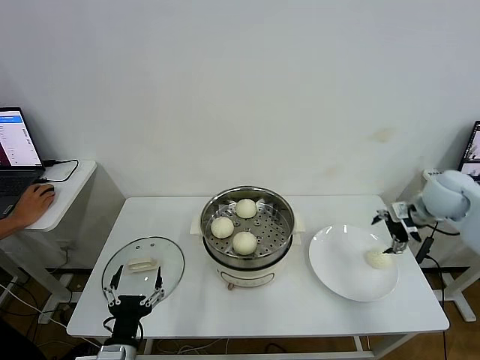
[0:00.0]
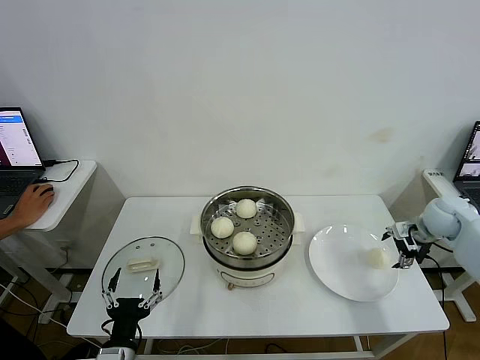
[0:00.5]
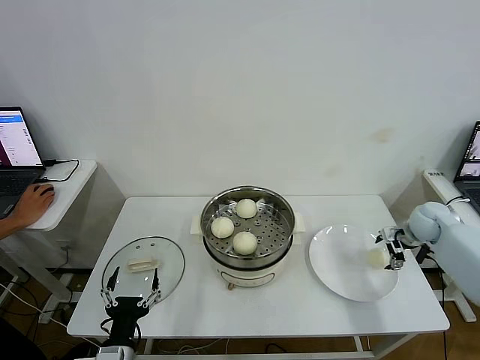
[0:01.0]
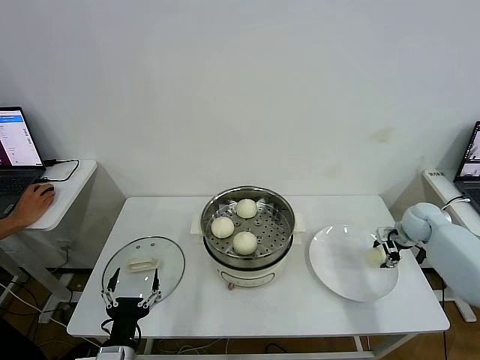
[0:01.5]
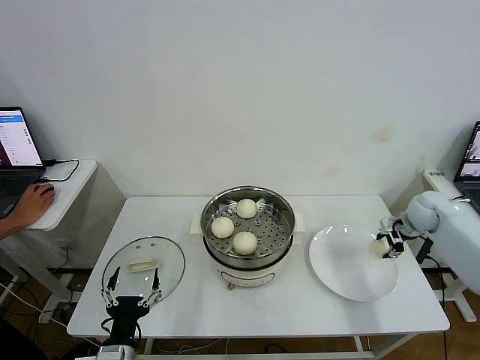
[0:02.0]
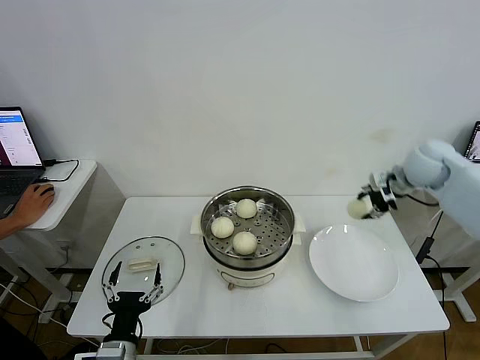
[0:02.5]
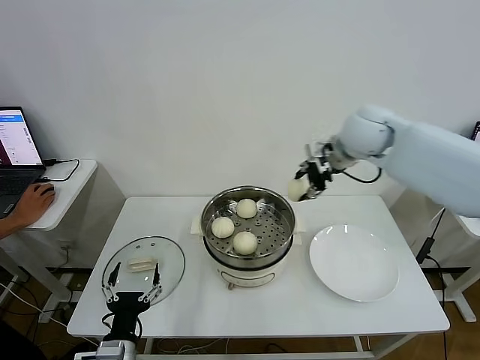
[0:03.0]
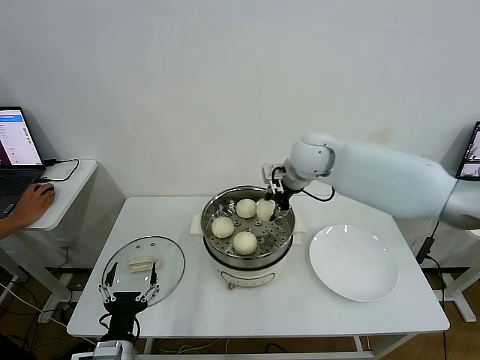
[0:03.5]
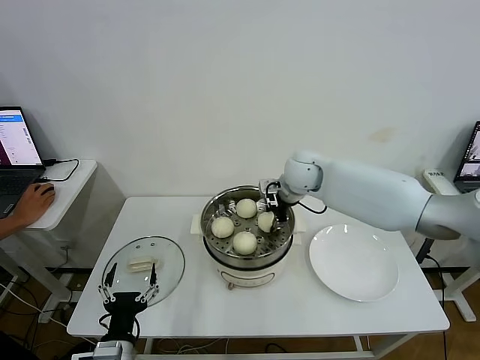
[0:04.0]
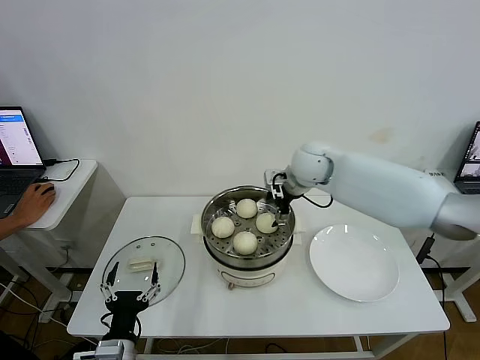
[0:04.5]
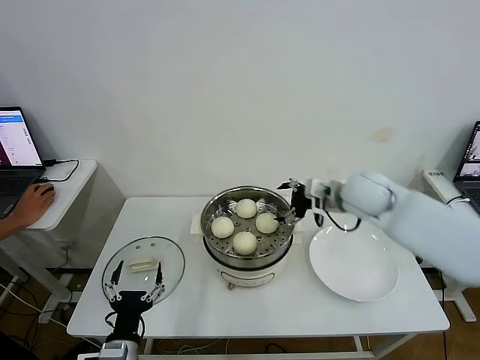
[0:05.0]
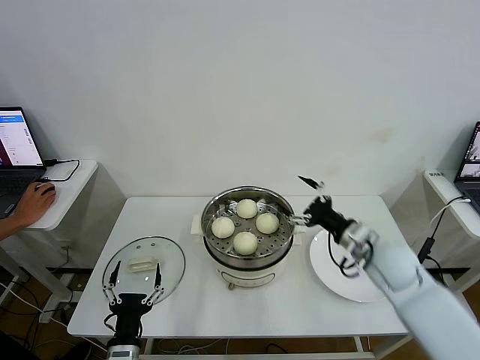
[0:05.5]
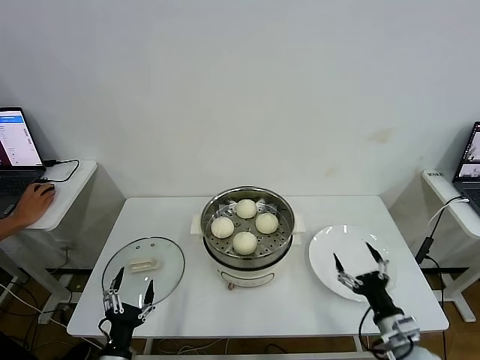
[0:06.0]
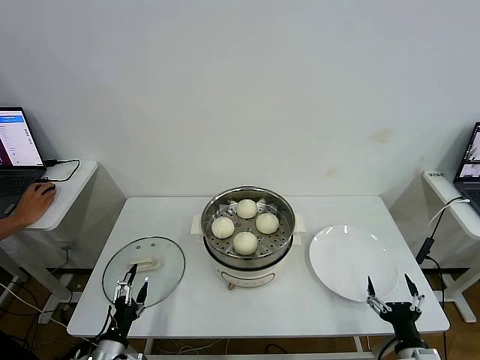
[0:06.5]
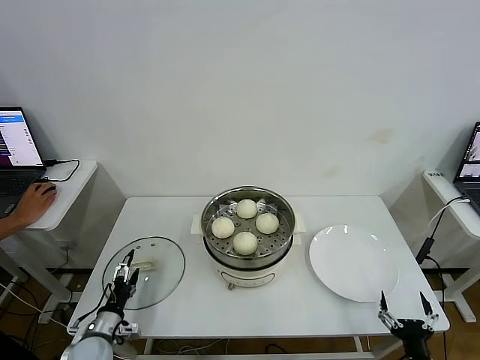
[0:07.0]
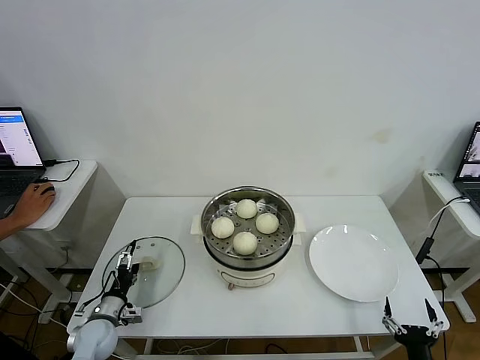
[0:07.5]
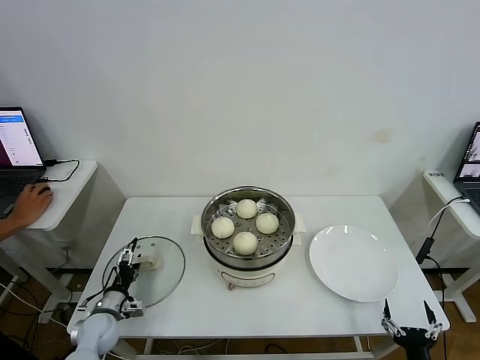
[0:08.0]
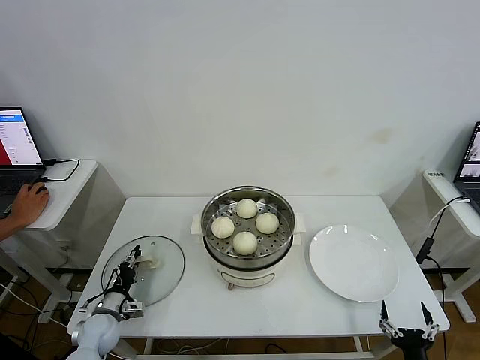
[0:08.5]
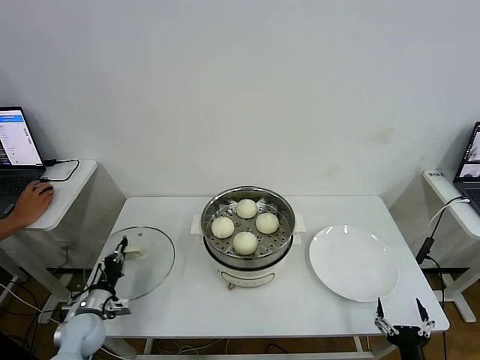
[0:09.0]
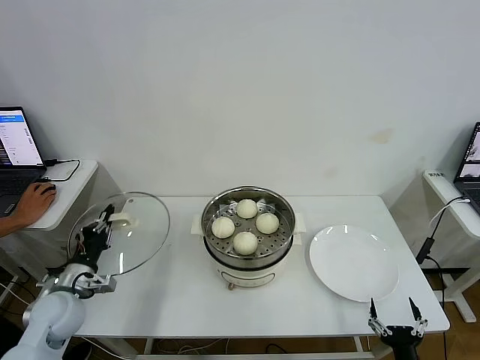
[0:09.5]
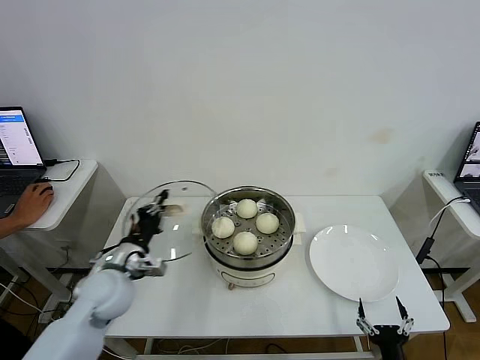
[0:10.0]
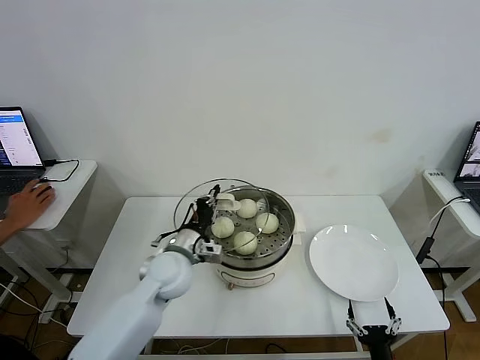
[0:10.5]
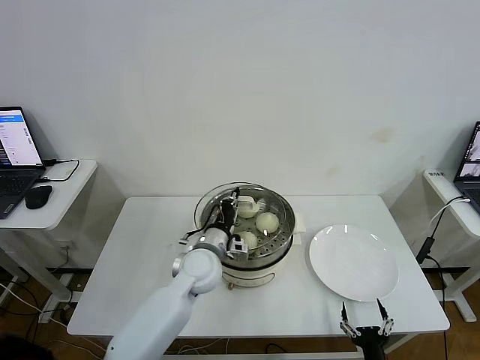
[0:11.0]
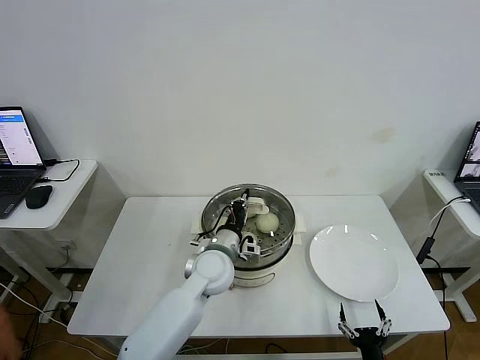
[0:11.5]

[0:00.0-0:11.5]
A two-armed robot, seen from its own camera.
Step, 0:00.0 to 0:01.5: Grasp the baozi in the plate with right gripper.
Step, 0:02.0 to 0:04.5: Place the baozi on the steamer with right gripper.
Step, 0:05.0 to 0:08.5: Grasp the pot lid with left gripper.
0:00.0 to 0:02.0: The right gripper heads downward, covering roughly 10 cm, and closes up.
0:02.0 to 0:04.0: The right gripper is displaced to the left by roughly 30 cm.
0:04.0 to 0:06.0: The right gripper goes approximately 50 cm backward, downward and to the right, and opens up. Meanwhile the left gripper moves roughly 5 cm.
0:06.0 to 0:07.5: The right gripper is displaced backward by some 10 cm. Meanwhile the left gripper is displaced forward and to the left by about 20 cm.
0:07.5 to 0:09.5: The left gripper goes roughly 15 cm upward, and closes its fingers.
0:09.5 to 0:11.5: The right gripper shifts by roughly 5 cm. Meanwhile the left gripper shifts approximately 30 cm to the right.

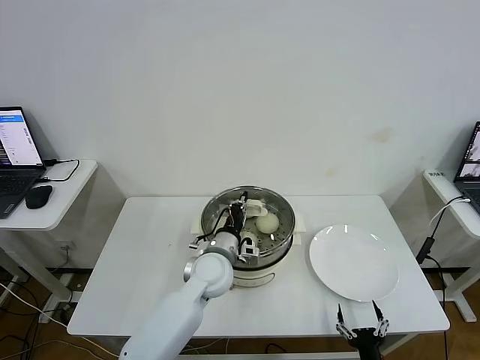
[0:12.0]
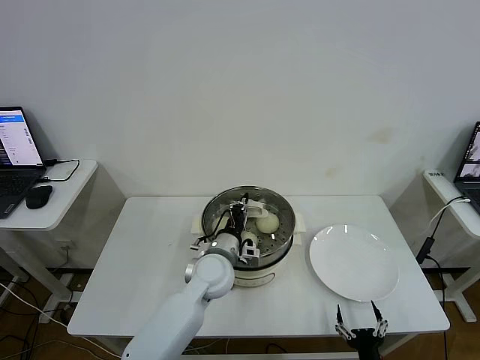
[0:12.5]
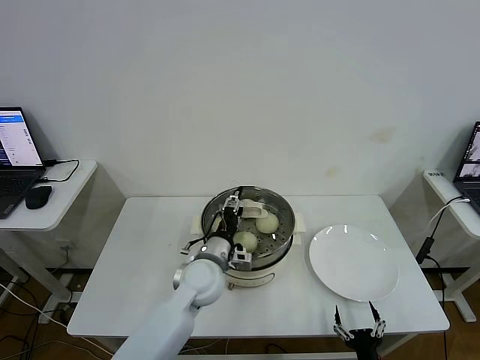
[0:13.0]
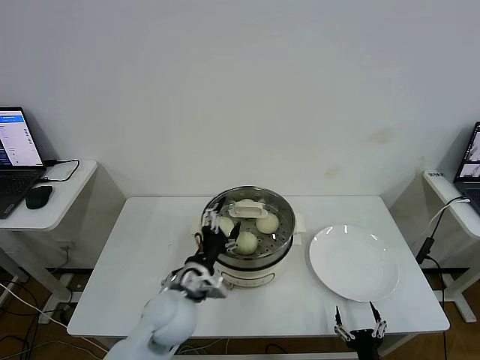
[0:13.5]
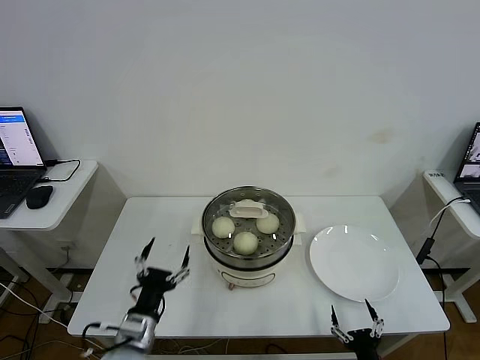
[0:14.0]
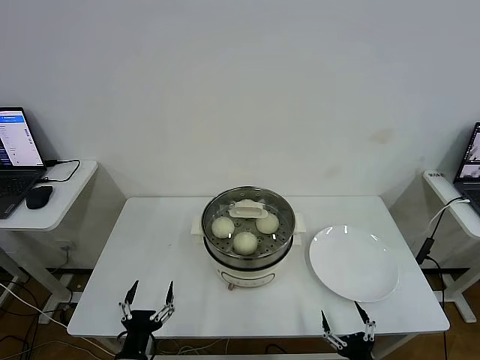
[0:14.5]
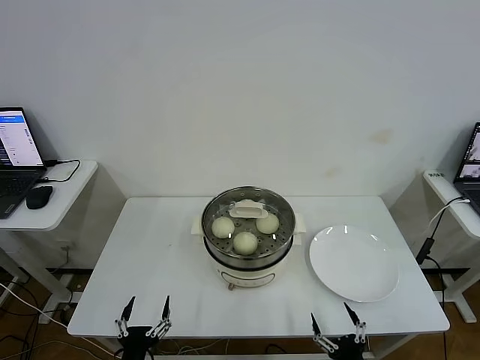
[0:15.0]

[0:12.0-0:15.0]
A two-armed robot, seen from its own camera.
0:12.0 to 0:13.5: The left gripper heads backward and to the left, covering about 10 cm, and opens.
0:13.5 to 0:15.0: The right gripper shifts by some 5 cm. Meanwhile the left gripper travels backward, downward and to the left by about 25 cm.

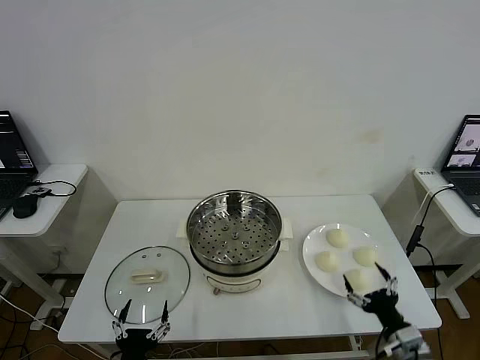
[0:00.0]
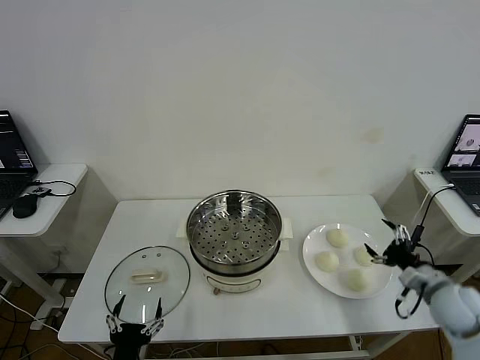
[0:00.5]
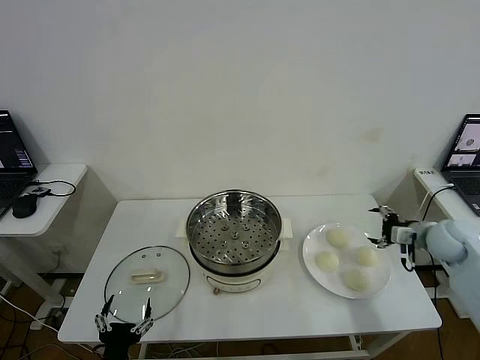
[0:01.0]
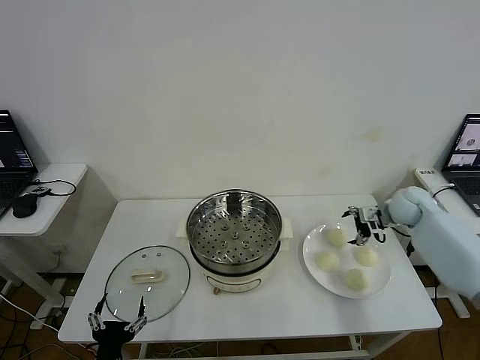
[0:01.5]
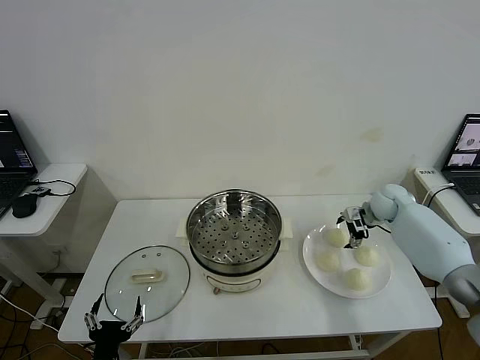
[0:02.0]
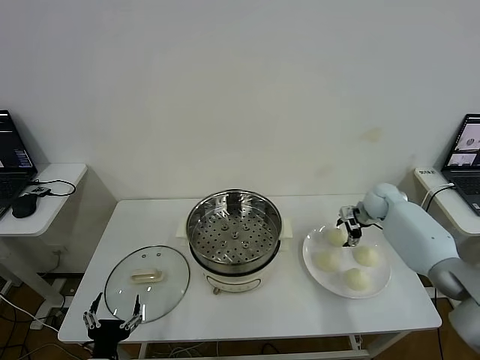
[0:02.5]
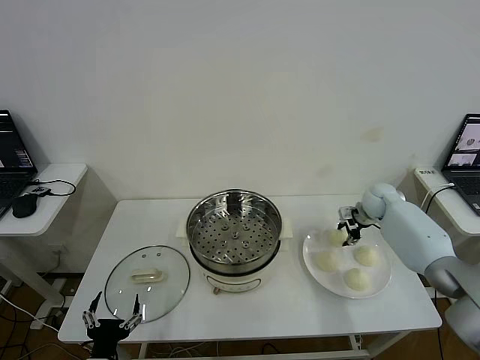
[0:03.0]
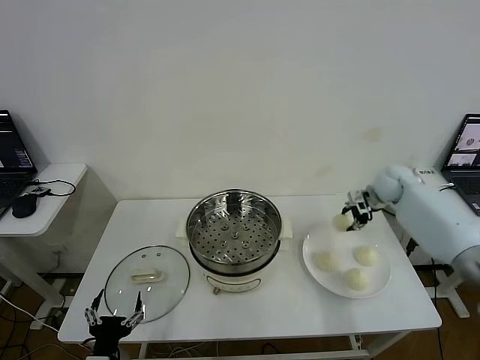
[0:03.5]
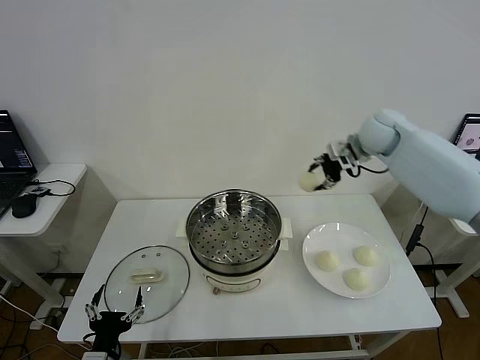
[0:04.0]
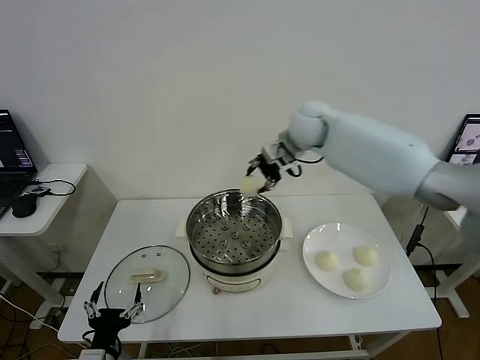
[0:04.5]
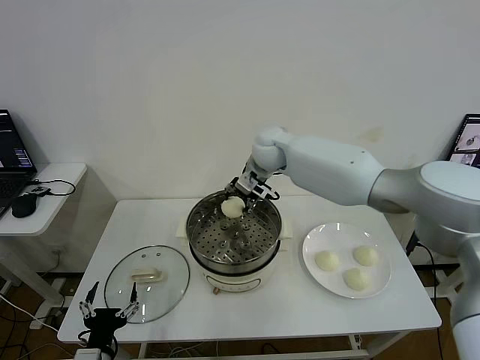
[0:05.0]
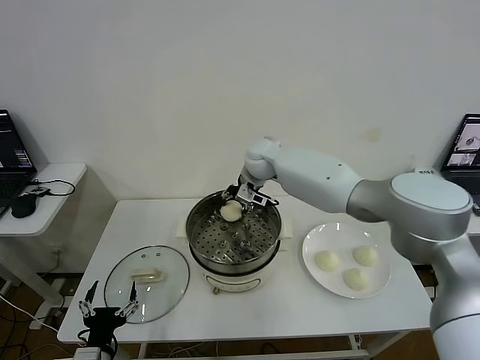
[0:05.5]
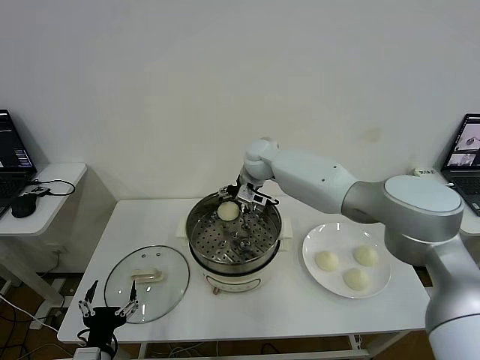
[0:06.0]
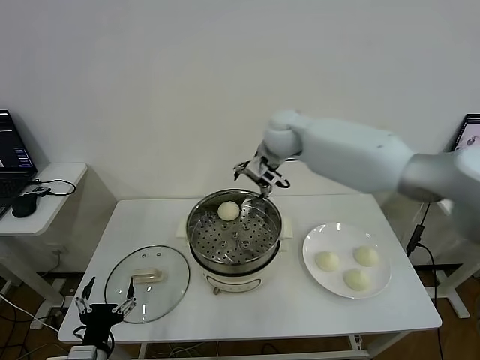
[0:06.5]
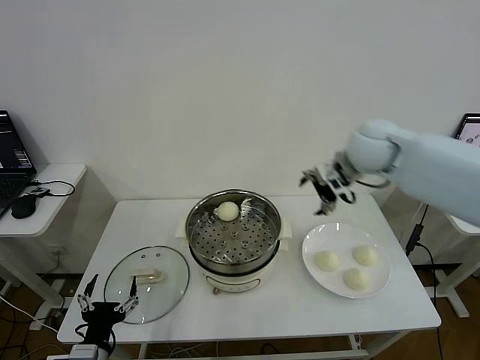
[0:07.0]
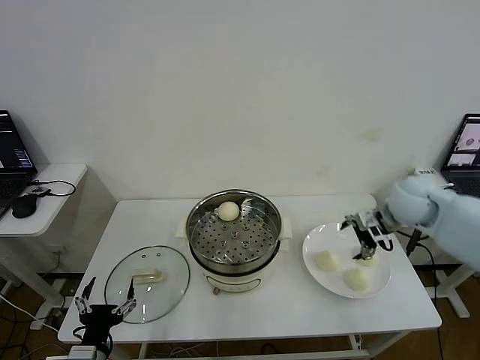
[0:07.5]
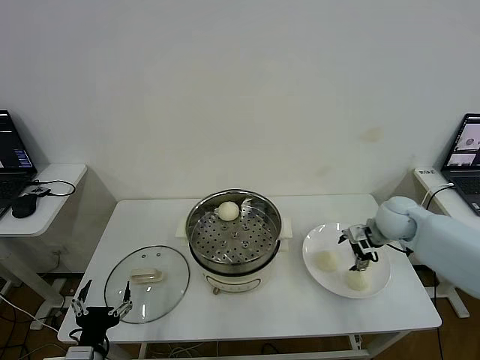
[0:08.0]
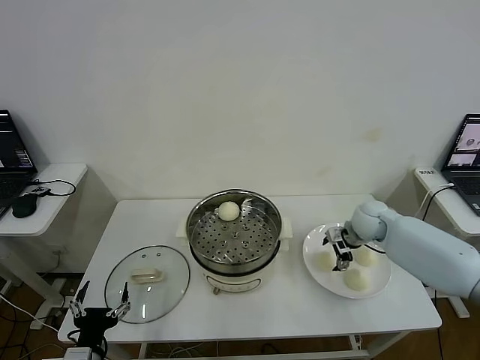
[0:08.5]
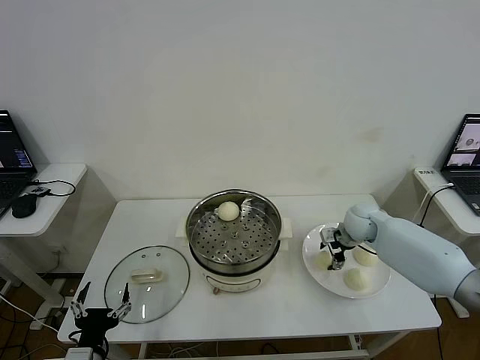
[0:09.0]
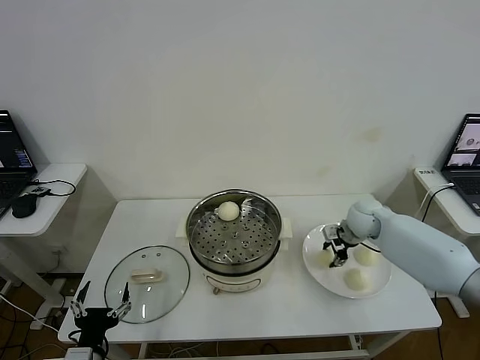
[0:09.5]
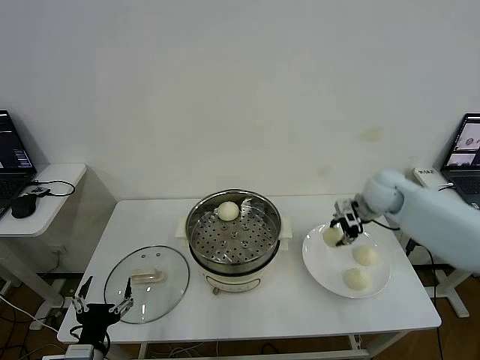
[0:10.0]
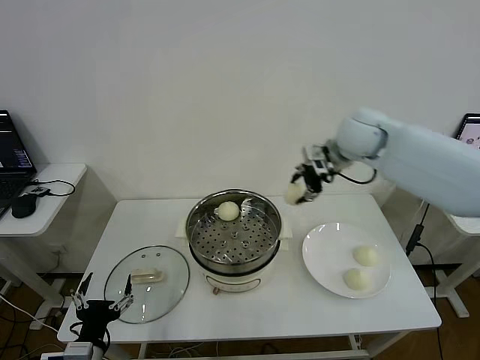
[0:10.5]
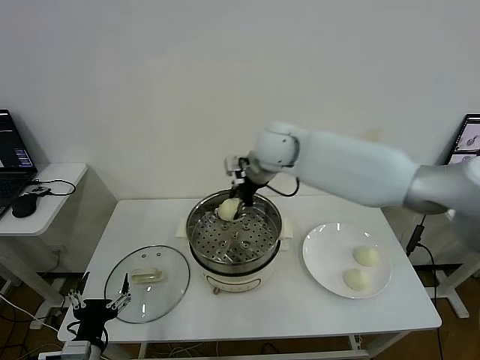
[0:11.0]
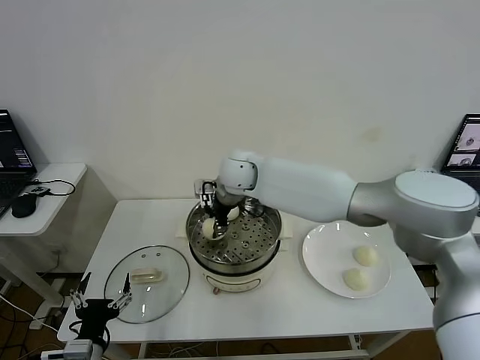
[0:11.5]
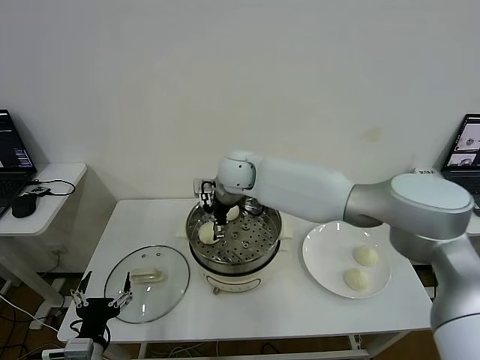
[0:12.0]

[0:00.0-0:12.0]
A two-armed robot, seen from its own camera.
Step, 0:00.0 to 0:02.5: Grasp the baozi in the plate with right gripper.
Step, 0:03.0 to 0:05.5: Place the baozi on the steamer with right gripper.
Step, 0:06.0 to 0:09.0: Grasp the baozi in the plate with right gripper.
Step, 0:09.5 to 0:11.5: Place the baozi on the steamer with right gripper.
0:02.0 to 0:04.0: The right gripper is displaced upward and to the left by some 25 cm, and closes its fingers.
0:04.0 to 0:06.0: The right gripper shifts roughly 25 cm to the left and downward, and opens up.
0:06.0 to 0:08.0: The right gripper heads to the right, covering some 30 cm.
0:08.0 to 0:10.0: The right gripper goes roughly 10 cm upward, and closes up.
0:10.0 to 0:12.0: The right gripper shifts some 35 cm to the left, and opens.
